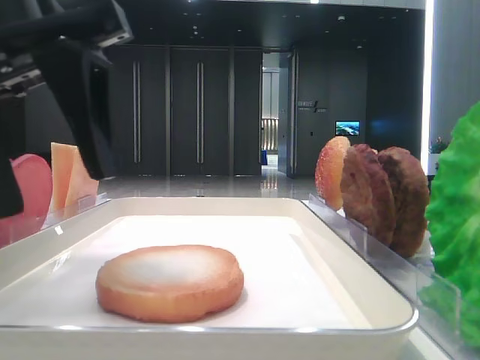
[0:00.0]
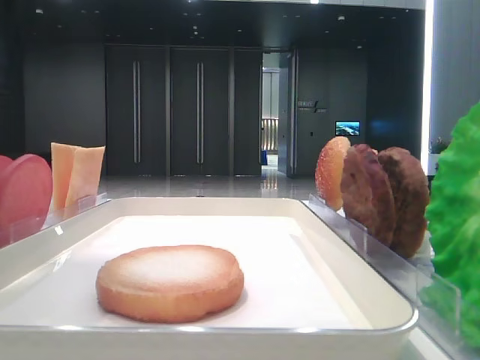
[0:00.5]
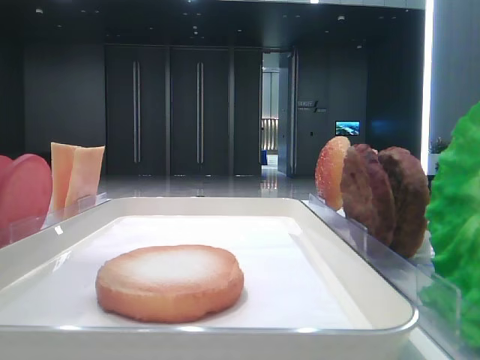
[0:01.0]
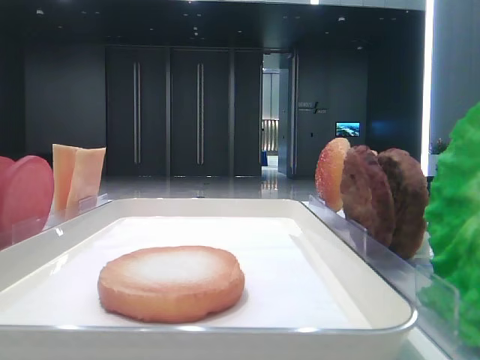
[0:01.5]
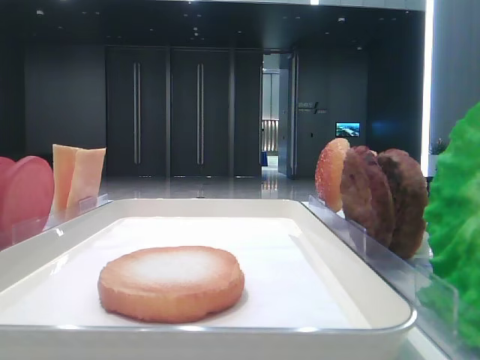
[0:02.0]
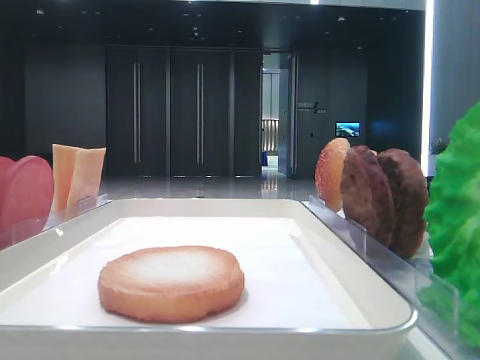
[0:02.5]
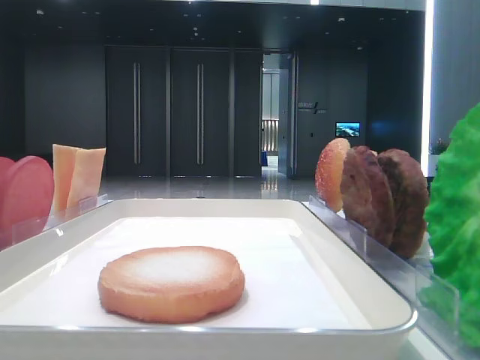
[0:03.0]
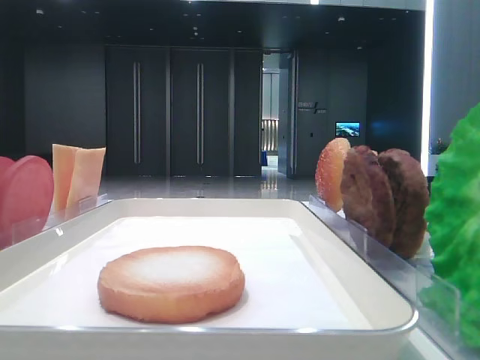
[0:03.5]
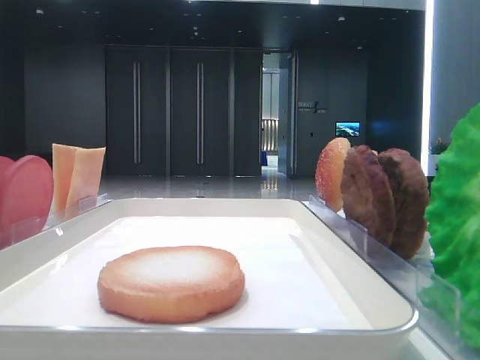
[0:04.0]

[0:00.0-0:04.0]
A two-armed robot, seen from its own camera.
0:00.0 to 0:02.0: The left gripper moves to the left and upward, some 25 cm.

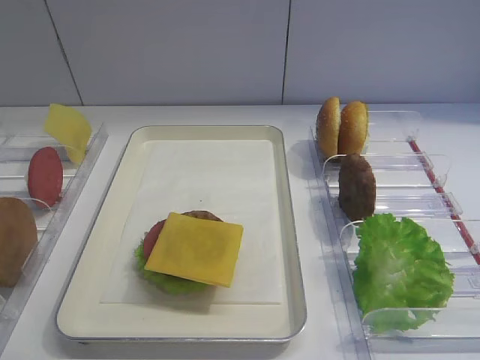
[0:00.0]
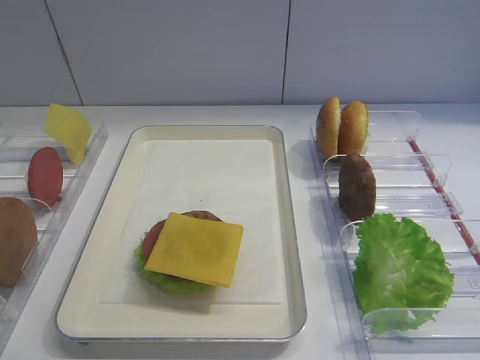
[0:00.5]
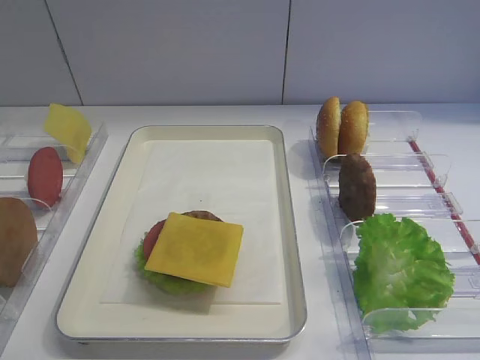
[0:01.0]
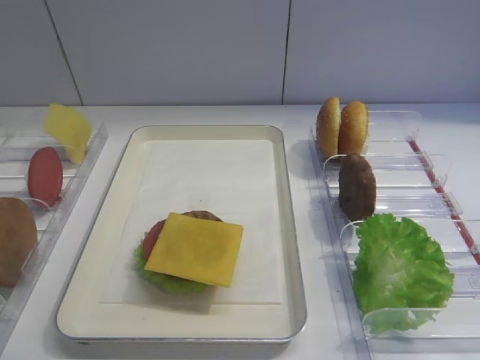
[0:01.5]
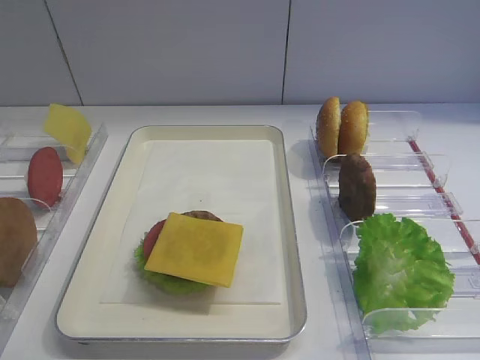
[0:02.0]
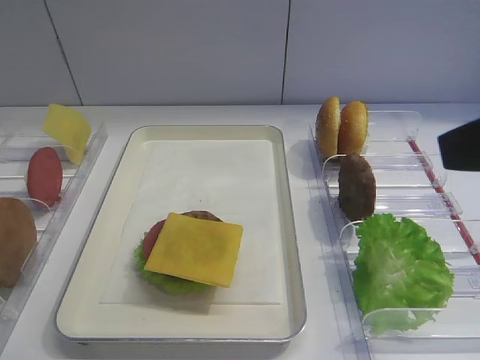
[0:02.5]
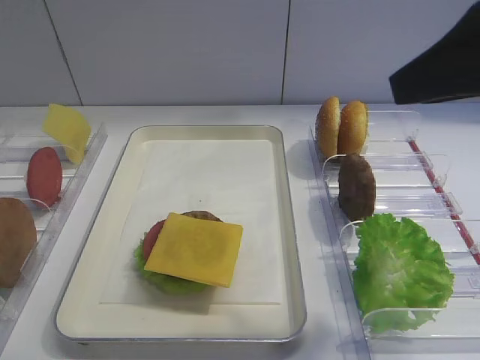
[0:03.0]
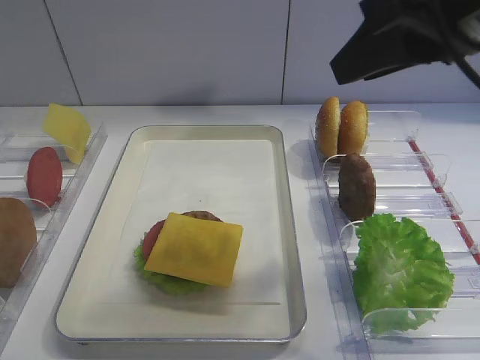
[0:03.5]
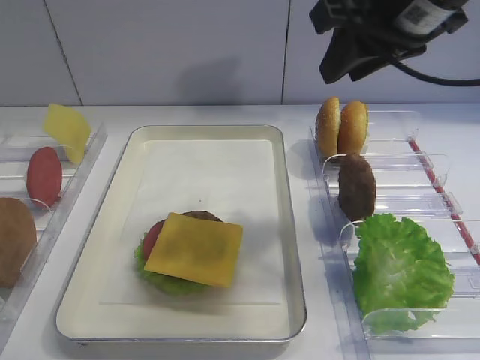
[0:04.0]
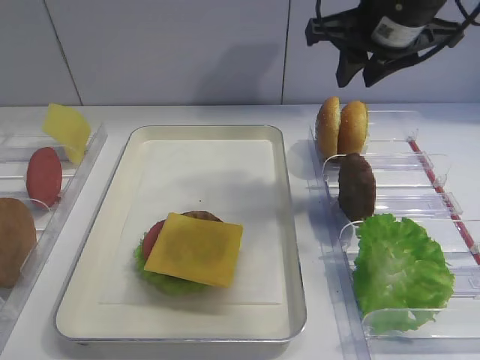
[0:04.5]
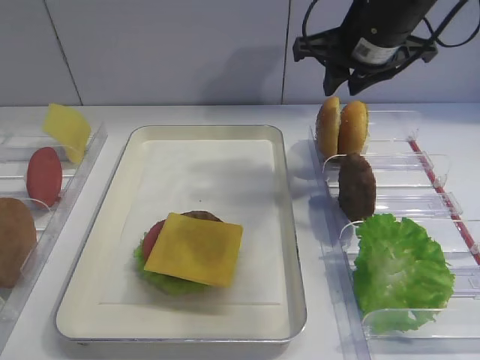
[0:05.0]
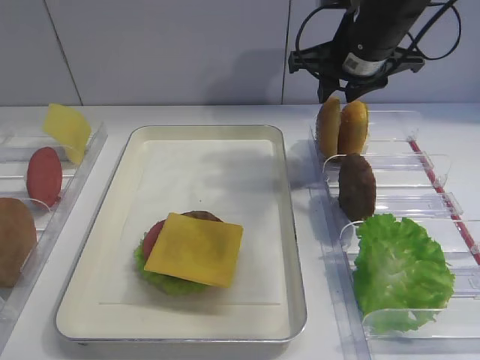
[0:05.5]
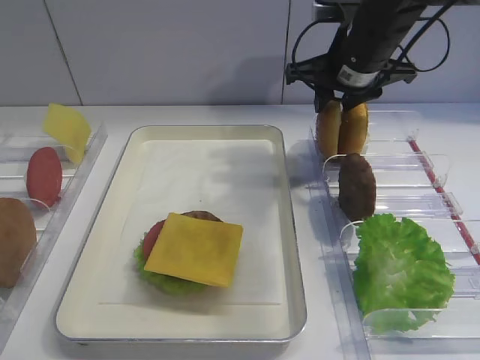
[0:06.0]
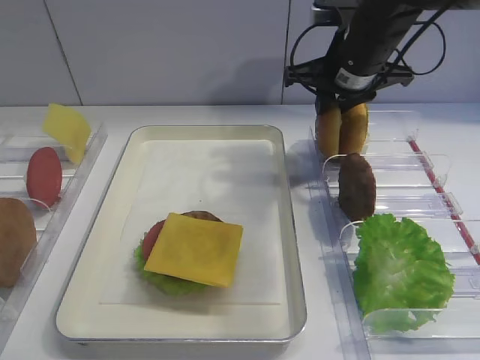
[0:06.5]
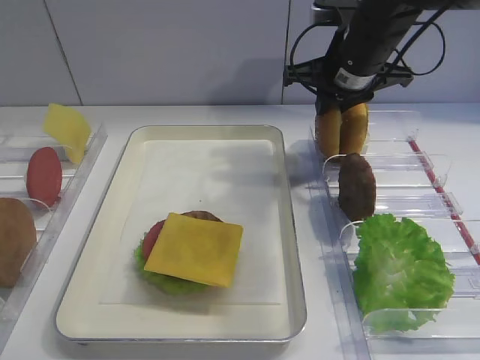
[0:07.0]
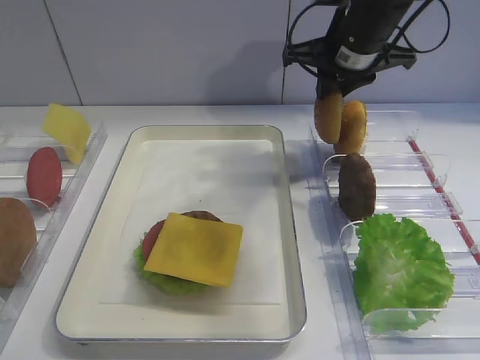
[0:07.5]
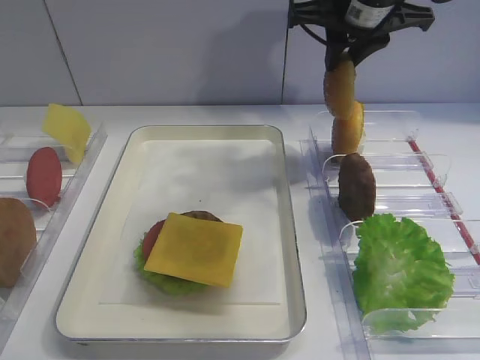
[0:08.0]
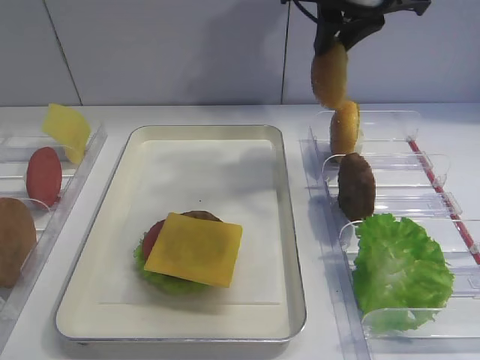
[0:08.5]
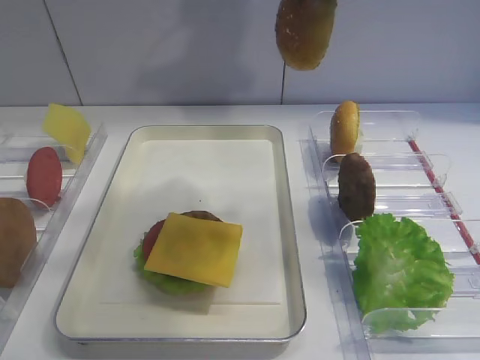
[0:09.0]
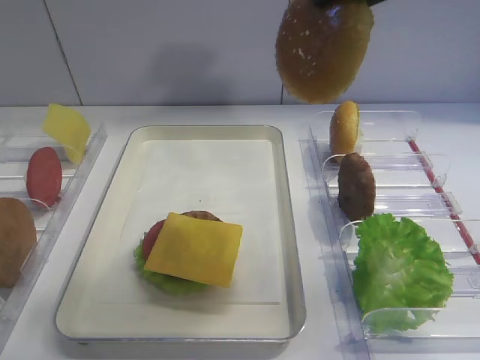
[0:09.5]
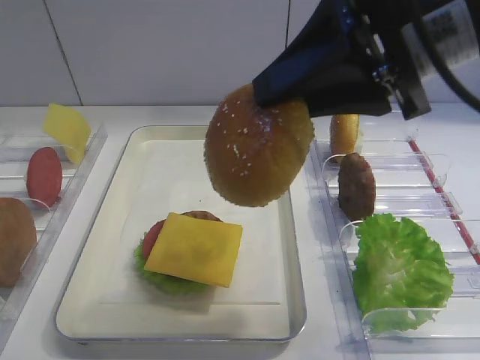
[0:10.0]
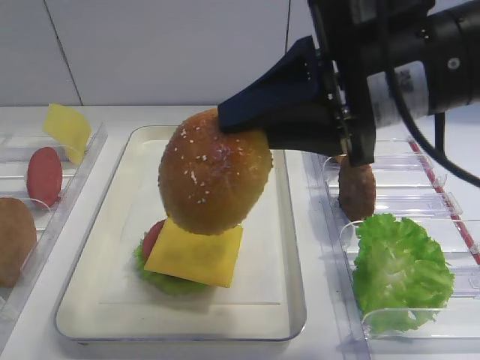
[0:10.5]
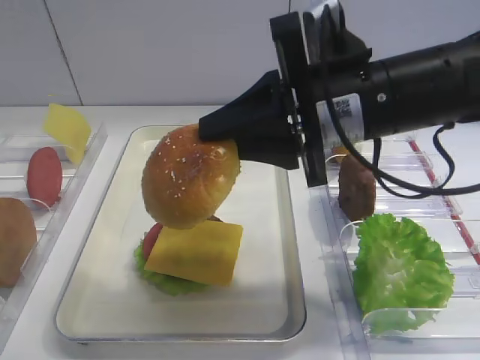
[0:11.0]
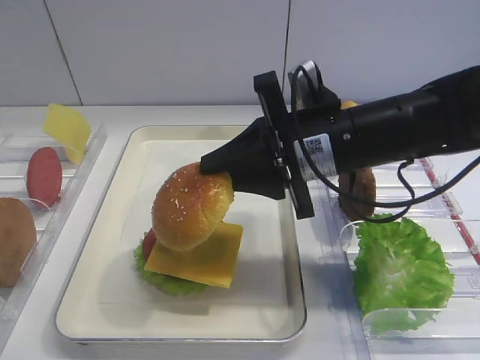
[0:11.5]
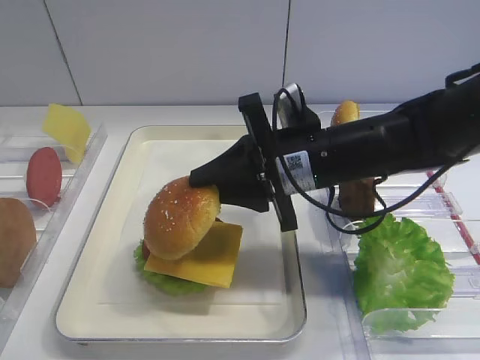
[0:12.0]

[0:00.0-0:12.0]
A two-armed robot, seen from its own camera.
Step, 0:00.0 to 0:08.5: Pick up the hamburger lid with the right gripper.
0:02.0 to 0:04.0: The right gripper is displaced forward by approximately 25 cm.
0:04.0 to 0:06.0: The right gripper is displaced forward and downward by roughly 15 cm.
0:06.0 to 0:08.0: The right gripper moves upward, approximately 5 cm.
0:08.0 to 0:10.0: The right gripper is displaced backward by roughly 20 cm.
0:10.0 to 0:12.0: The right gripper shifts about 20 cm downward and forward.

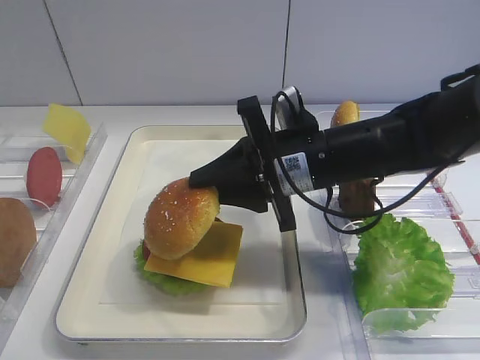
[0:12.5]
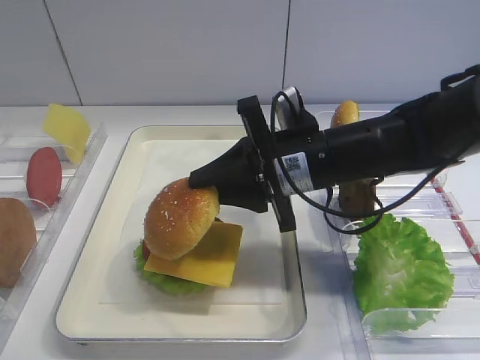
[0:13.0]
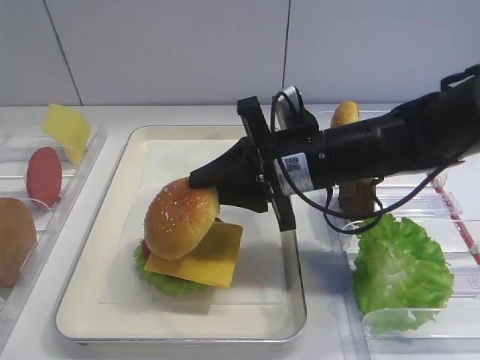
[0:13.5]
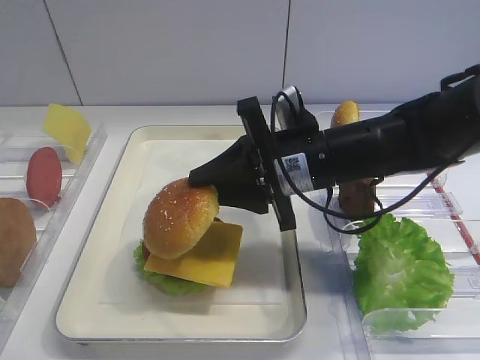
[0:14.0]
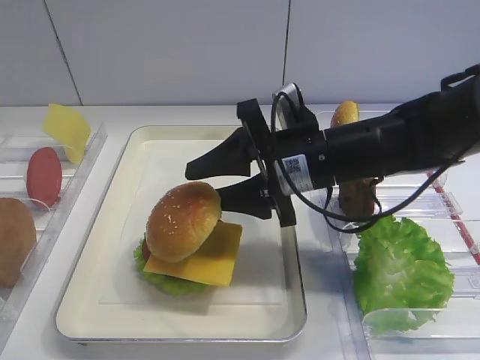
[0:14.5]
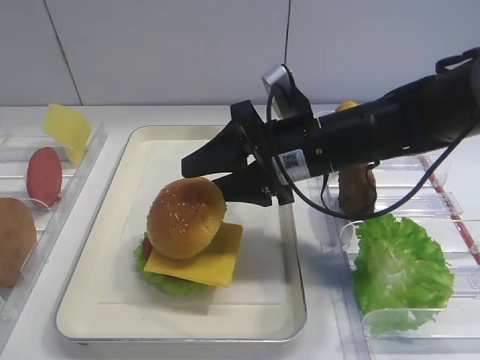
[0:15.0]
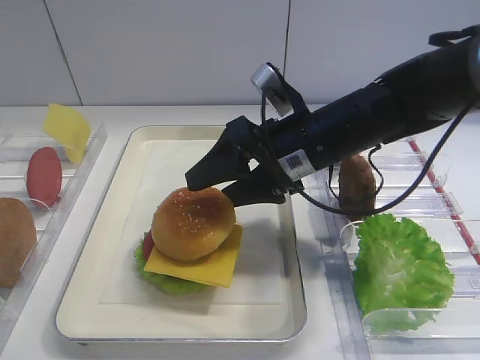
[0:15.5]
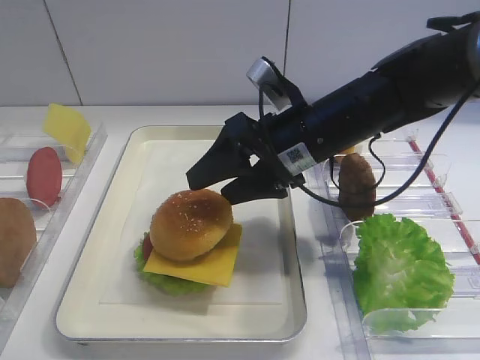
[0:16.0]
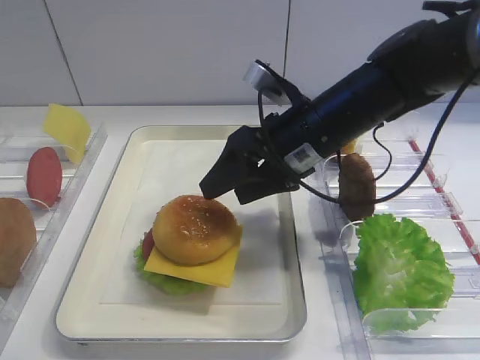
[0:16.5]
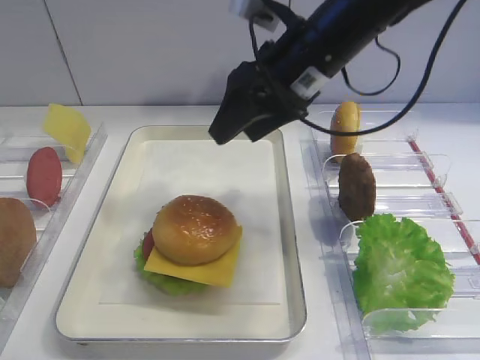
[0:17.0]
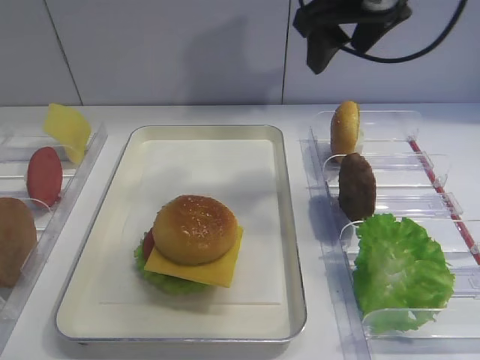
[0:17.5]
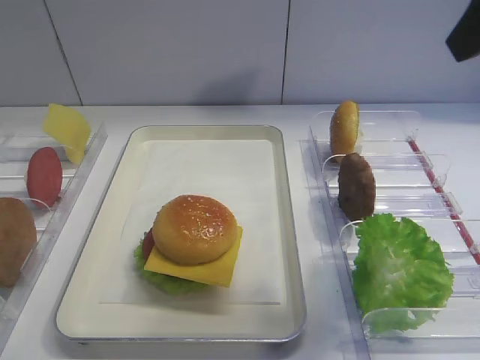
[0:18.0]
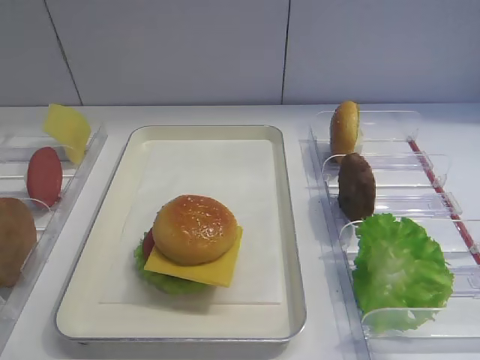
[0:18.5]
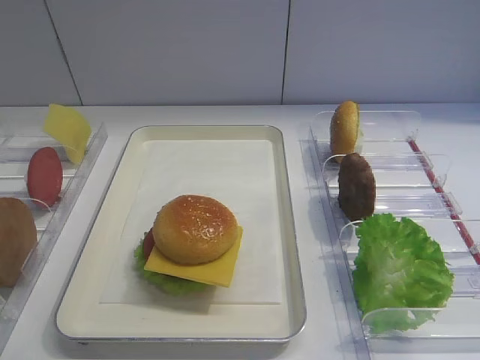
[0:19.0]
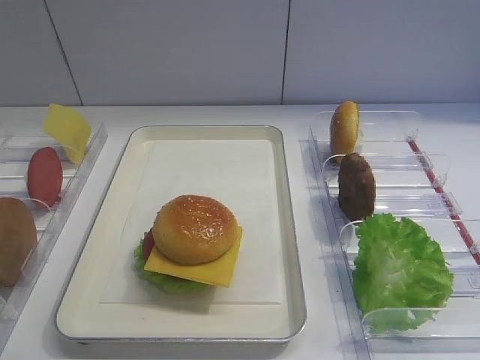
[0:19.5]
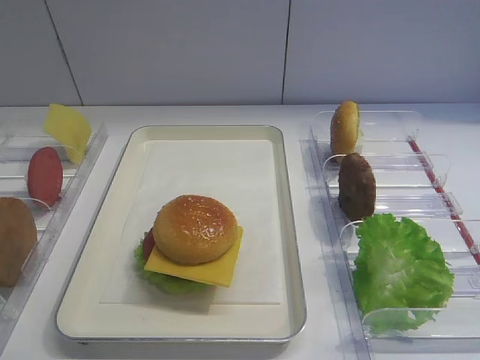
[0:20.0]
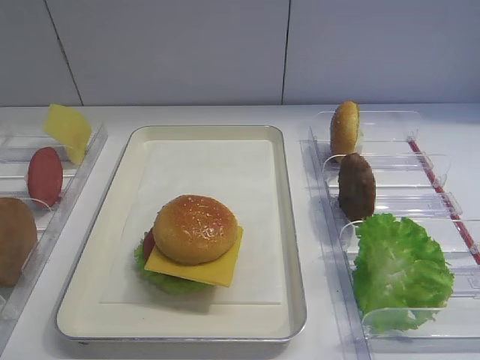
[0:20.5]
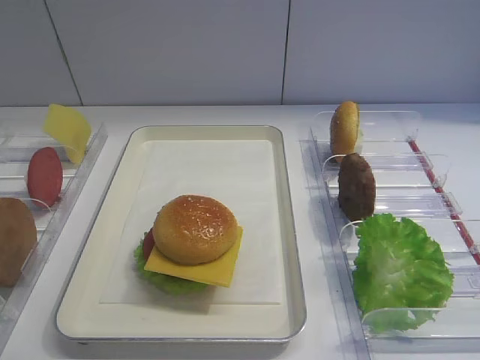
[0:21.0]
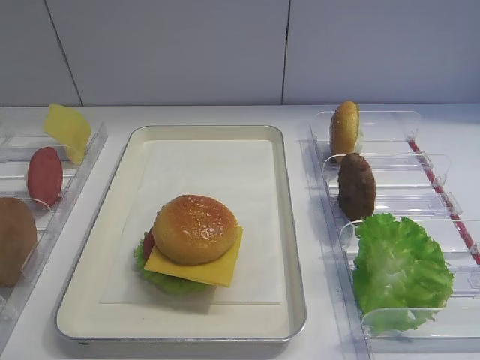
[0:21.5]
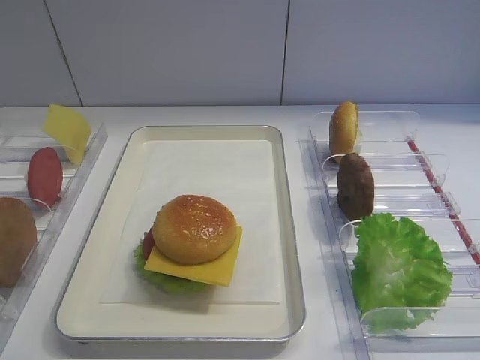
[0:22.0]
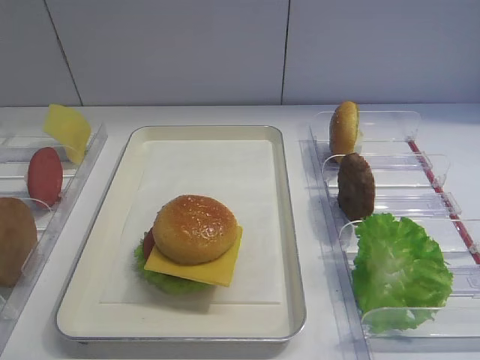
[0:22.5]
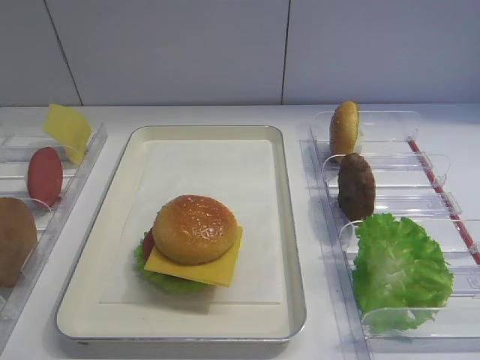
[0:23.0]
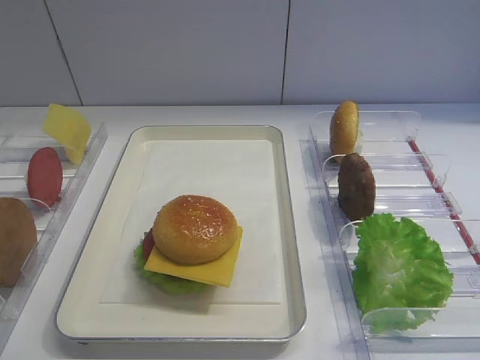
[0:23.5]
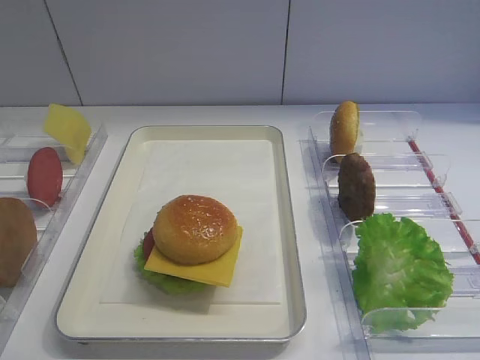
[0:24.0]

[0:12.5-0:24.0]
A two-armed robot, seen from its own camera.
Step, 0:12.5 to 0:16.5: Place the hamburger lid on the cheese slice with the right gripper.
0:12.5 to 0:14.5: The right gripper opens its fingers.
0:14.5 to 0:16.5: The right gripper opens its fingers.
0:16.5 to 0:18.5: The right gripper travels backward, to the right and upward by about 30 cm.
0:18.5 to 0:20.0: The right gripper moves backward and downward, about 15 cm.
0:20.0 to 0:22.0: Both grippers stay put.
